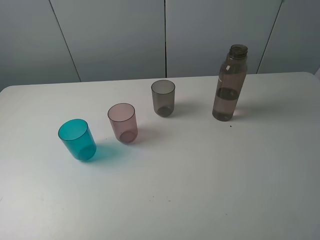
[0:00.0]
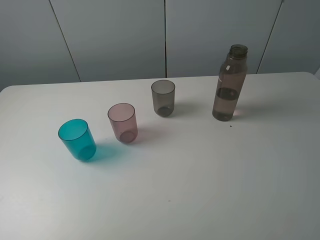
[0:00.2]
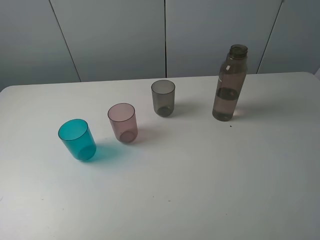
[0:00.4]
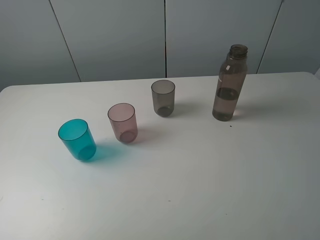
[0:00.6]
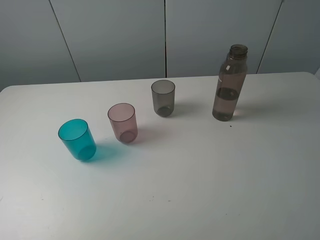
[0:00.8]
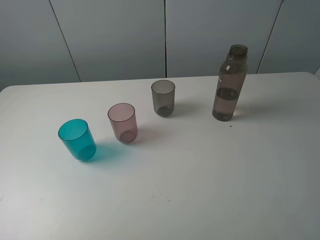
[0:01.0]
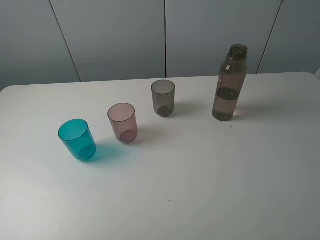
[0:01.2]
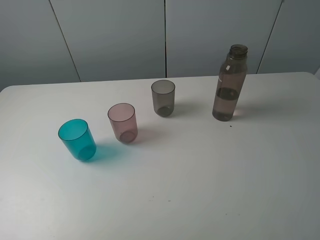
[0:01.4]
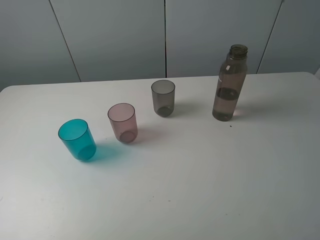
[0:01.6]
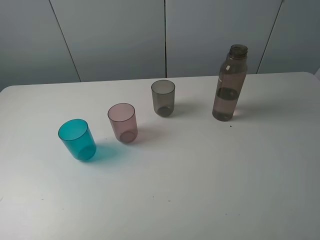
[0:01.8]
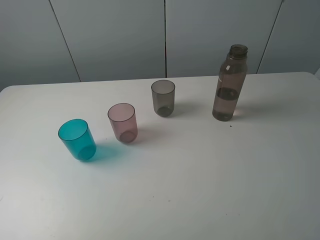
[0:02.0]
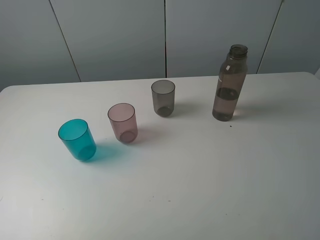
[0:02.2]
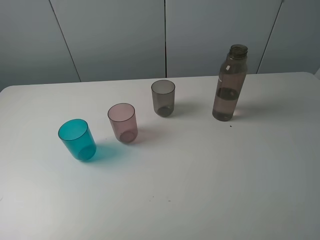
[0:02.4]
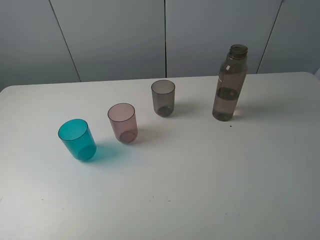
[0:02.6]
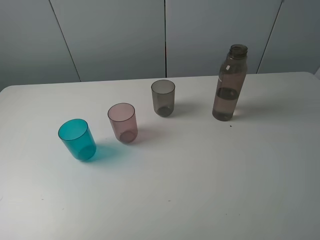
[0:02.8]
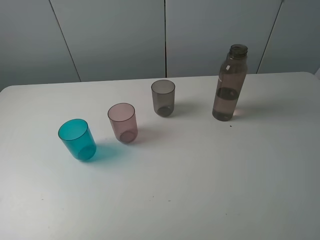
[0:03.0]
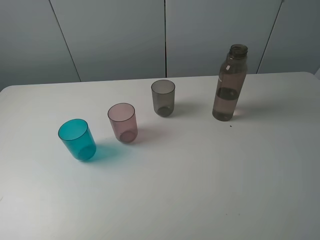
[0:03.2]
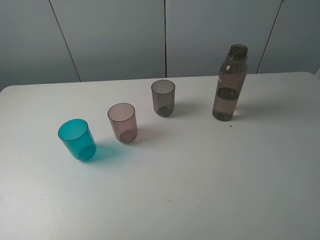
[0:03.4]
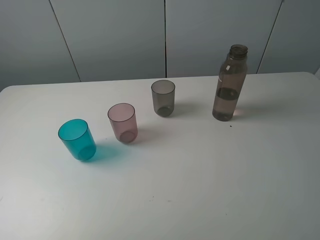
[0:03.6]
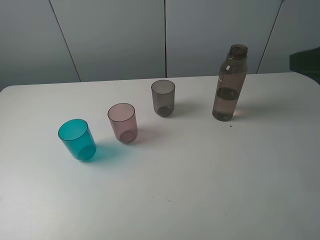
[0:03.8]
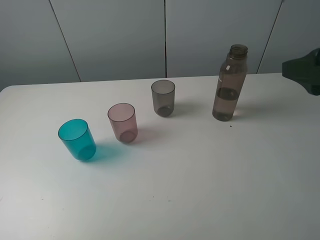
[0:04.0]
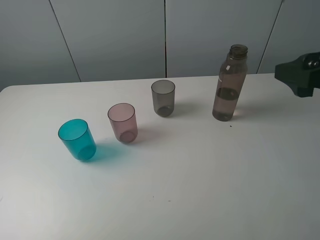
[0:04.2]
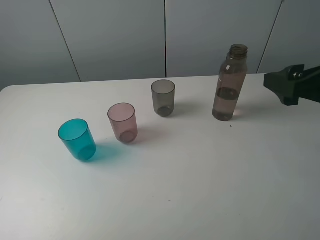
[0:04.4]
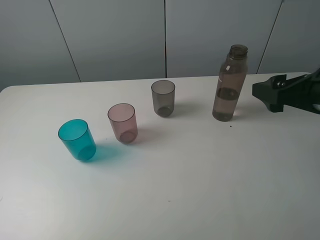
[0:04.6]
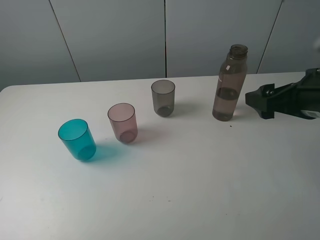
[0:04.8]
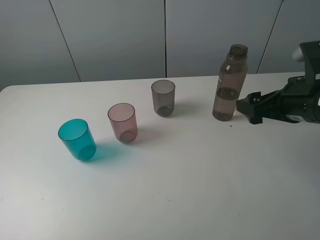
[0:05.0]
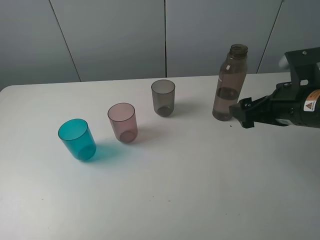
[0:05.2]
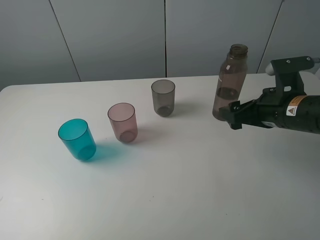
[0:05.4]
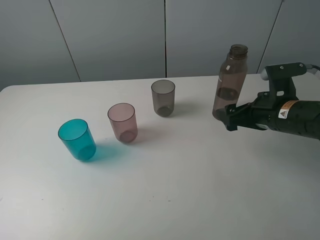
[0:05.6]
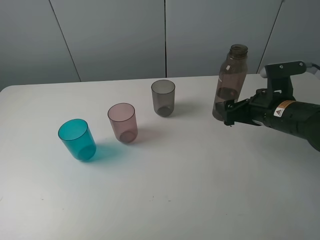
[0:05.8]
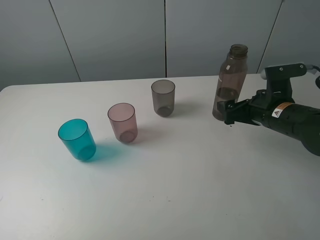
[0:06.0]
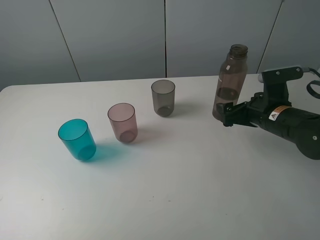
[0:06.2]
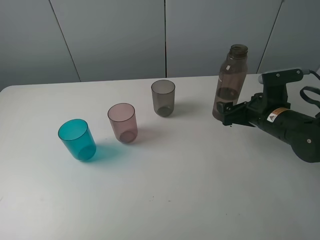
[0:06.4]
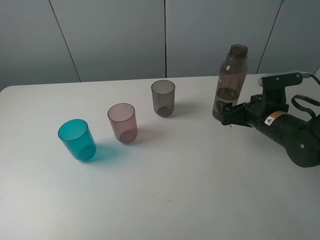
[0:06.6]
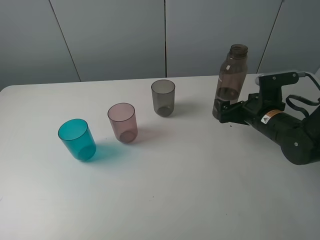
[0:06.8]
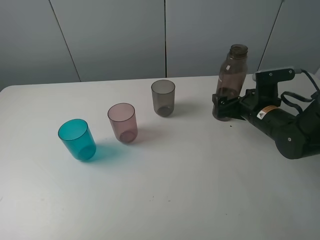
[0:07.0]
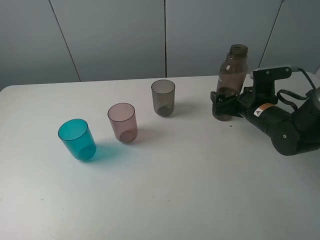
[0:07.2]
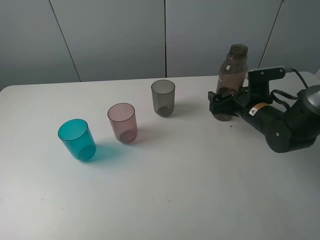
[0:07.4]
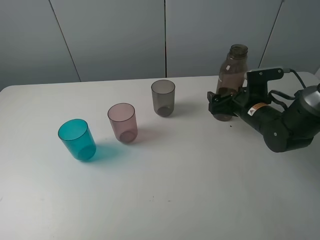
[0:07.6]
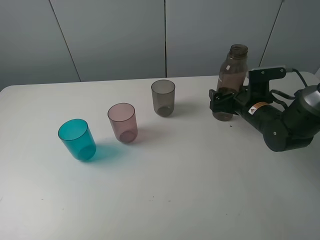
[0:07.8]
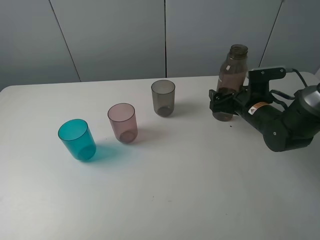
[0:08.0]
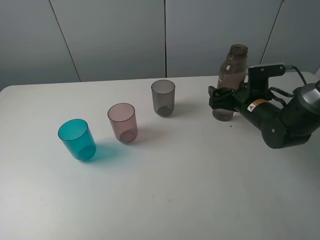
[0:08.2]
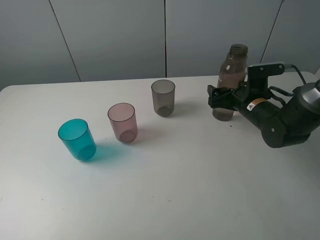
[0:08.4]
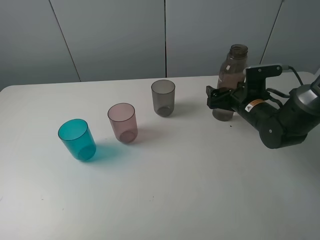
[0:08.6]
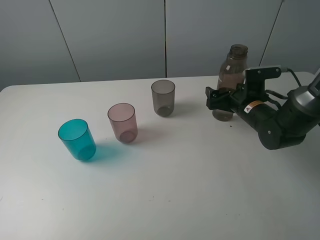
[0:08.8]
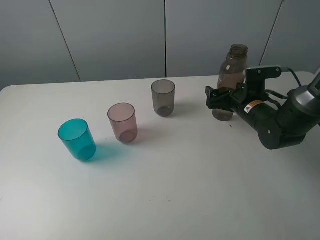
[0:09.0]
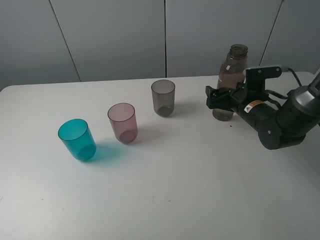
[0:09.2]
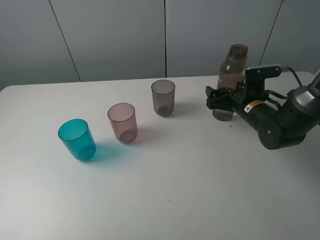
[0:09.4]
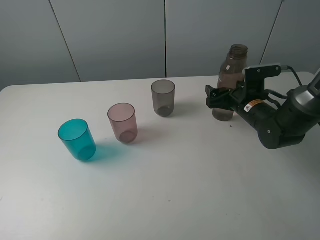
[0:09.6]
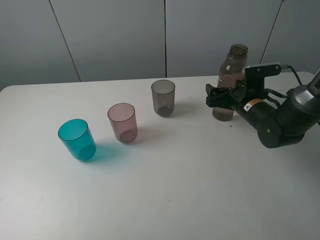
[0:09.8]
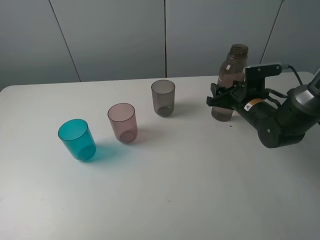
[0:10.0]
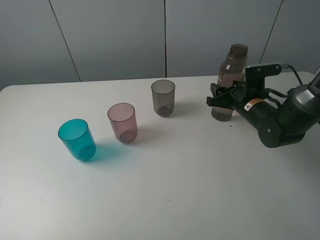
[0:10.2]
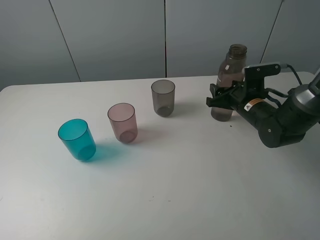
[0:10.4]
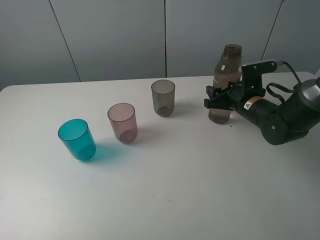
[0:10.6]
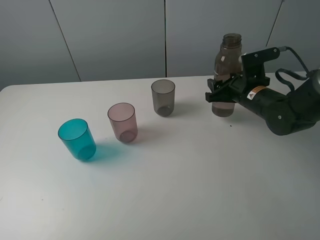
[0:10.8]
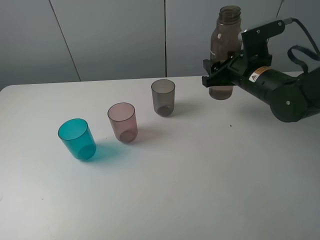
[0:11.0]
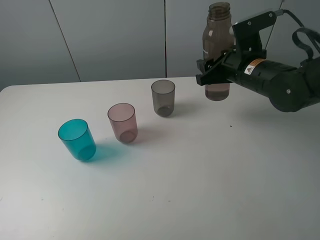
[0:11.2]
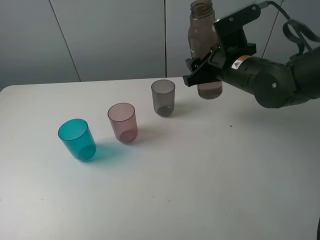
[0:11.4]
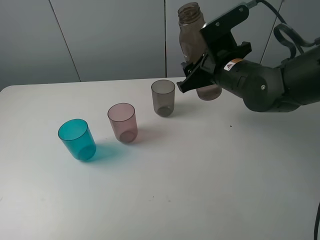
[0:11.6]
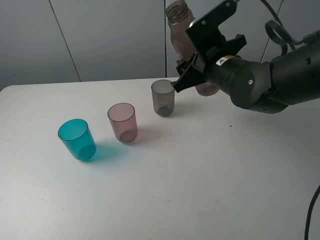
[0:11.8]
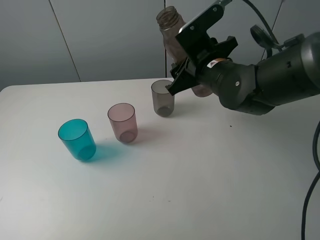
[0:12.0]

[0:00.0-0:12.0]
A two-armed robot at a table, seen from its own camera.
Task of the whole recording: pick up the bottle filled with water and pour water into the middle cup of the three cups.
Step, 0:00.0 to 0:10.0: Grasp the brown bottle with the right gripper.
0:00.0 to 0:01.6: Both grippers stay put.
0:03.0 to 0:04.4: The right gripper travels forward and downward by some 15 cm.
0:04.4 to 0:06.0: The right gripper travels downward and forward by roughly 15 cm.
0:06.0 to 0:07.6: The right gripper moves forward, some 5 cm.
0:07.6 to 0:09.0: Both grippers stay about where they are.
0:09.0 to 0:10.4: The right gripper closes its fingers.
0:10.4 to 0:12.0: The right gripper travels to the left and upward by about 15 cm.

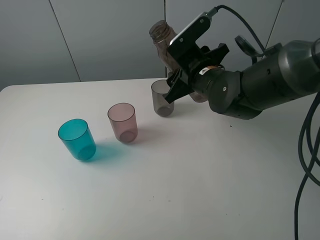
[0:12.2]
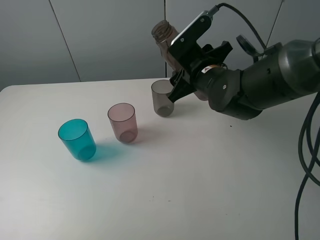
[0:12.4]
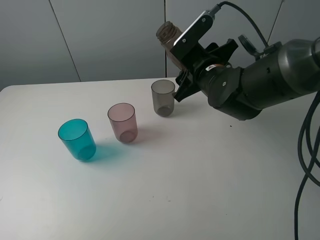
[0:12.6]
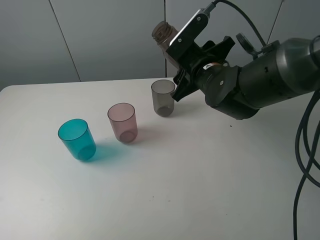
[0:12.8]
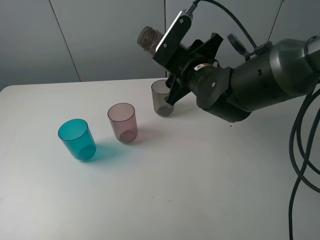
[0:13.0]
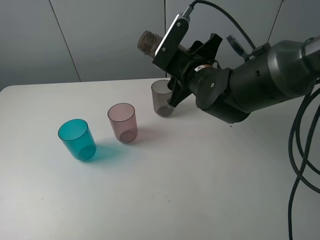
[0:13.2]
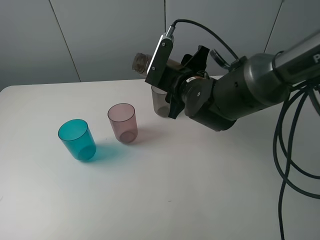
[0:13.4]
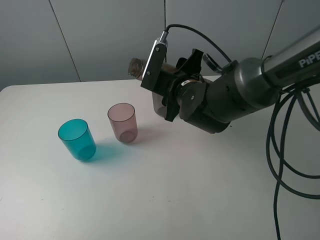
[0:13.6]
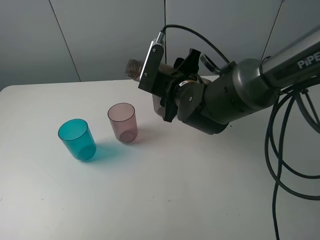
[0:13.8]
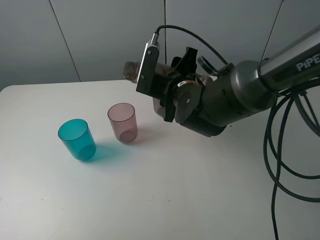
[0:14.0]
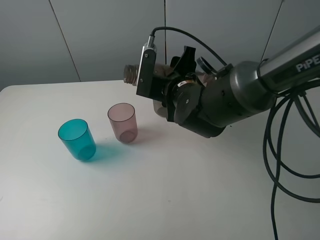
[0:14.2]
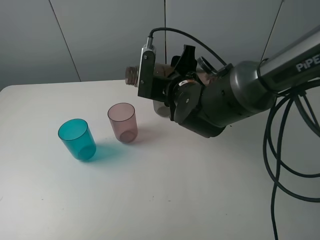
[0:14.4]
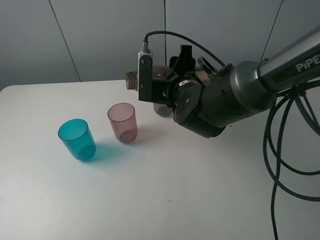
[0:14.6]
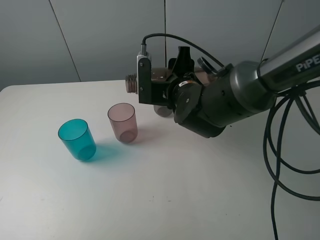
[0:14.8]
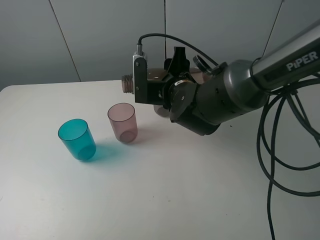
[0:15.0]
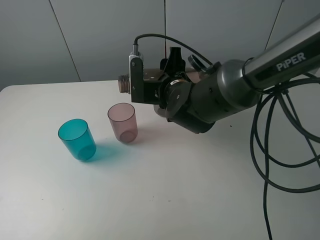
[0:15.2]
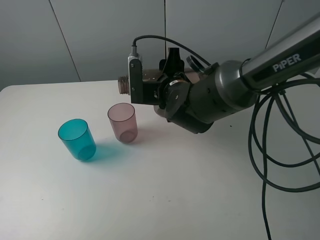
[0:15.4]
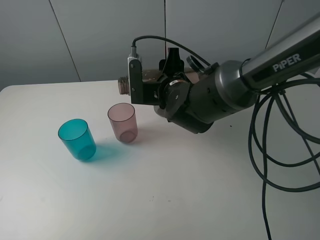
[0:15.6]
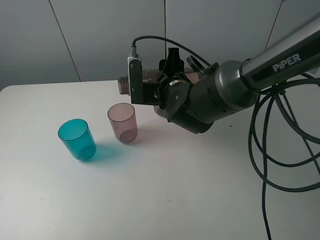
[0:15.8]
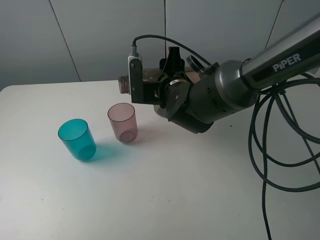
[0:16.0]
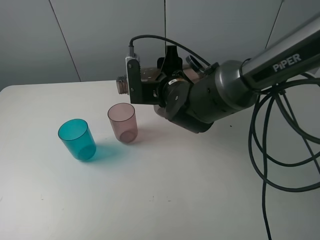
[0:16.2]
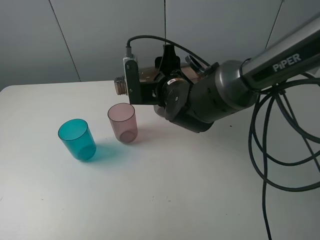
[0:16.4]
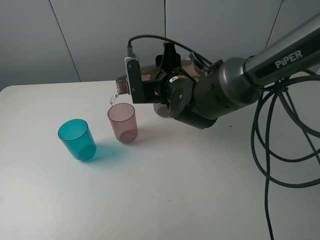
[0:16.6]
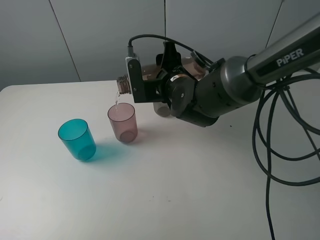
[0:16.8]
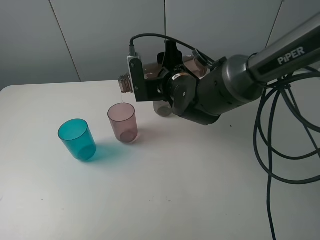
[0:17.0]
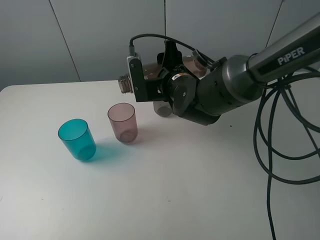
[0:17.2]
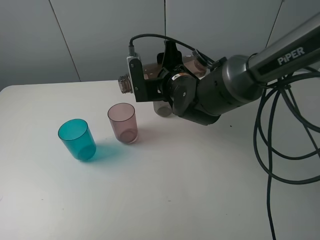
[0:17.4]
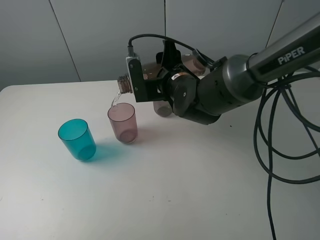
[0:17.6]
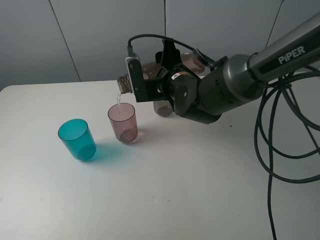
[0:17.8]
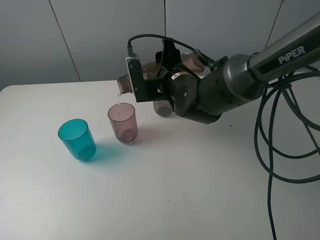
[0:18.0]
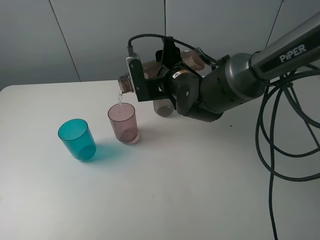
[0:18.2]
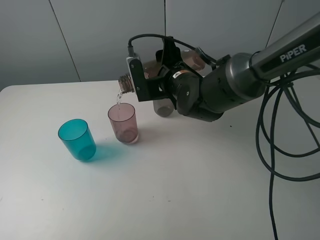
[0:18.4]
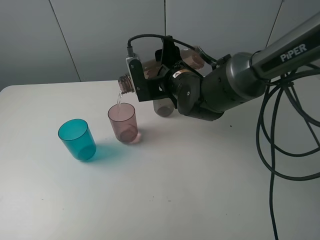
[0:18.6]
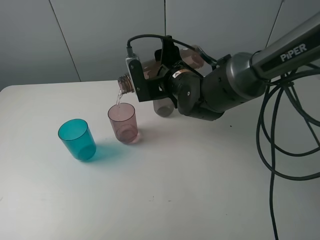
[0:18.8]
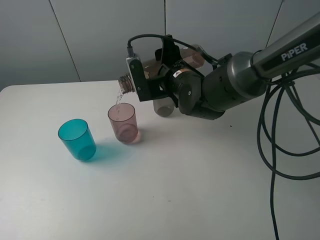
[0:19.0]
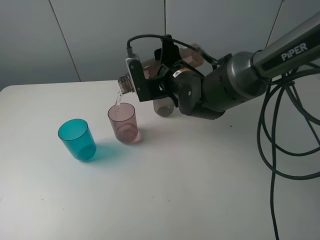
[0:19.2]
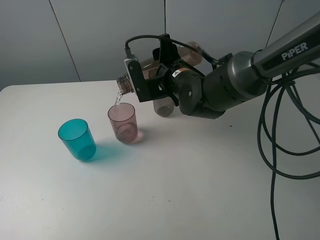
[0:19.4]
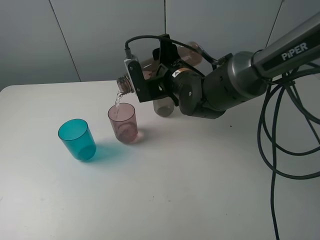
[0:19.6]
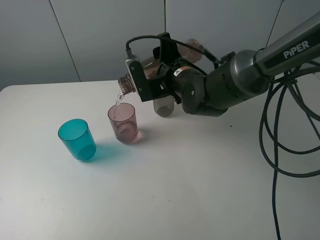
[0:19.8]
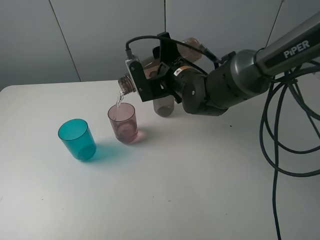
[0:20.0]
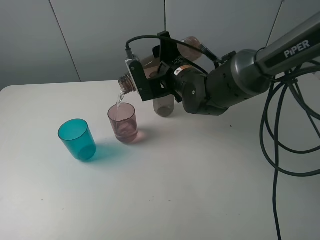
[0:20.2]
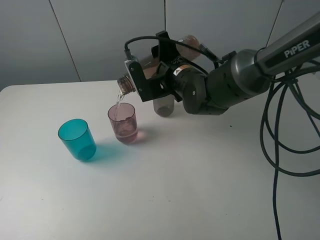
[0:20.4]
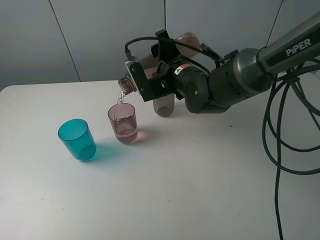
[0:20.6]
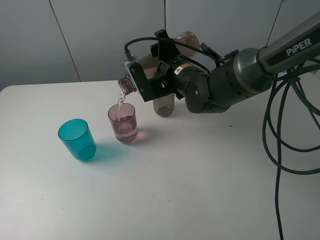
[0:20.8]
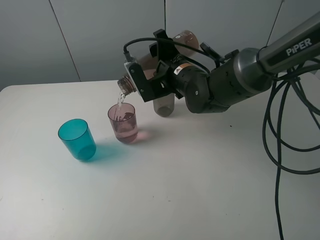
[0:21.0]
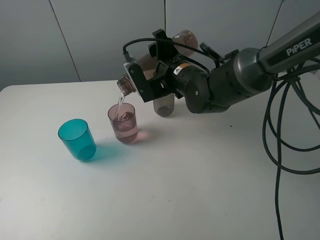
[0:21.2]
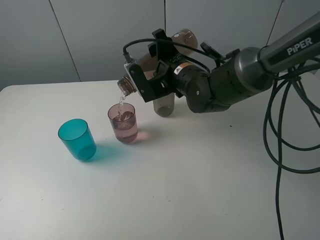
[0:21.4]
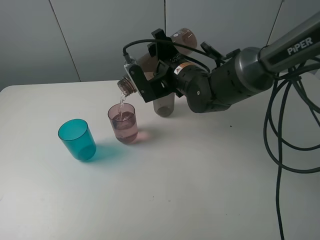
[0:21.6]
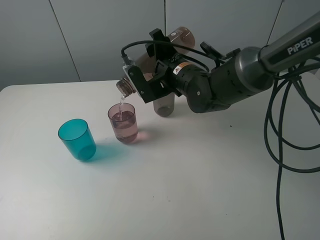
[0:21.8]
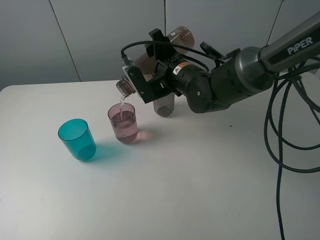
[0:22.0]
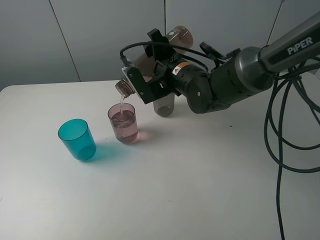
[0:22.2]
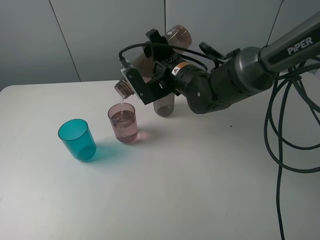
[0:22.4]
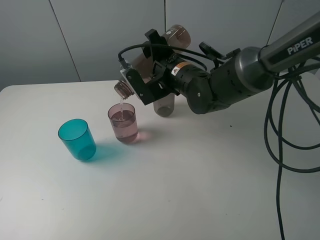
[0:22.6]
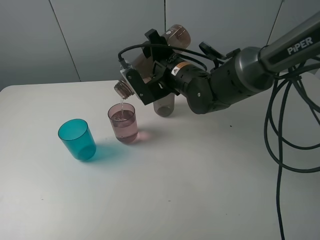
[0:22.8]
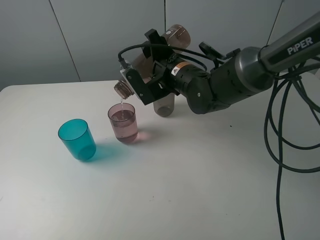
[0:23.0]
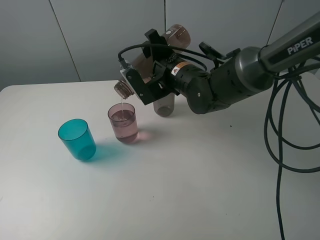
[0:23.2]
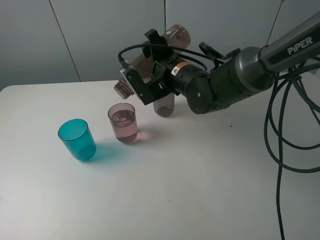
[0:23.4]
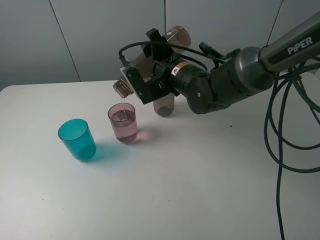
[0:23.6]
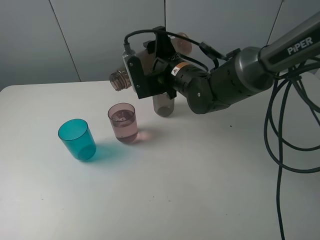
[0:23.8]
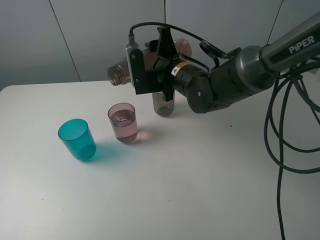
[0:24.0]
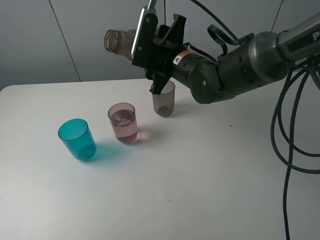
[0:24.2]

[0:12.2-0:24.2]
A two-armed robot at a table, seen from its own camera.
Task of the whole recording: pick up the bottle filled with water and pour water into the middle cup of the three cups.
Step, 0:12.2 to 0:16.2: Pour water from transparent bottle to red cup with the right gripper.
0:13.8 to 0:15.2: The grippers move only a little.
0:15.2 to 0:18.2: The grippers stay close to where they were, moving slightly.
0:18.2 to 0:21.2: The grippers move only a little.
0:21.2 to 0:22.6: The grippers stay close to where they were, moving slightly.
